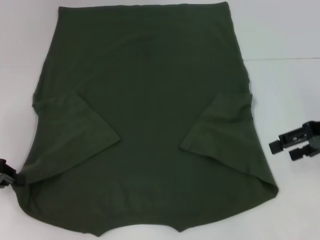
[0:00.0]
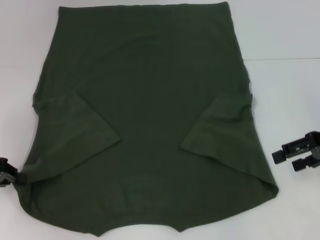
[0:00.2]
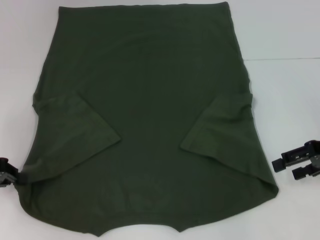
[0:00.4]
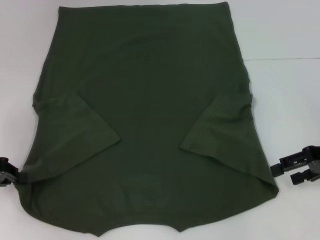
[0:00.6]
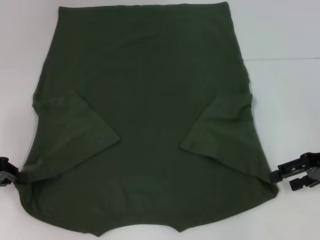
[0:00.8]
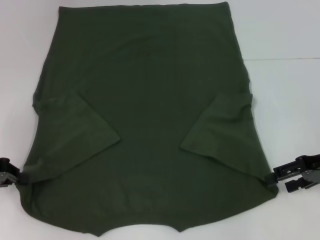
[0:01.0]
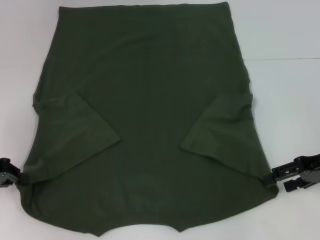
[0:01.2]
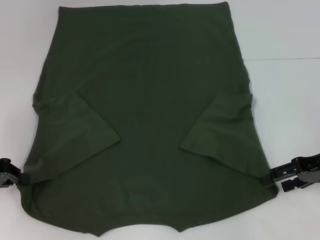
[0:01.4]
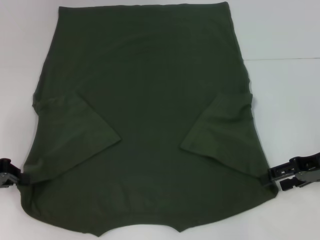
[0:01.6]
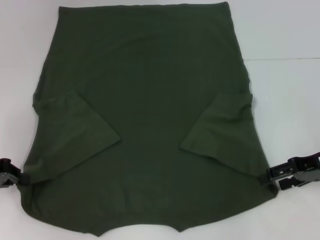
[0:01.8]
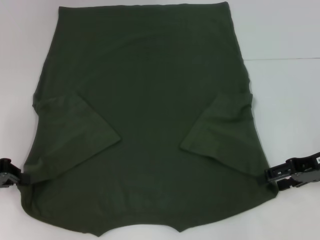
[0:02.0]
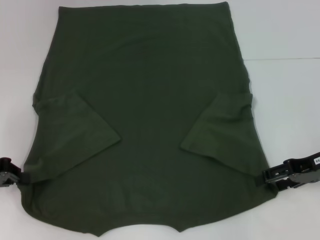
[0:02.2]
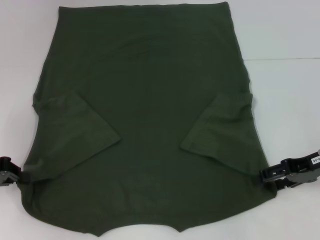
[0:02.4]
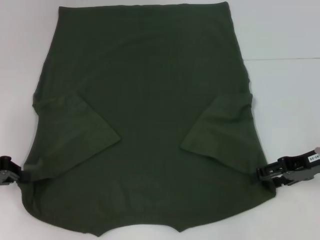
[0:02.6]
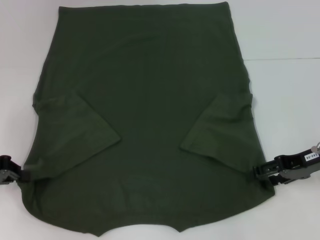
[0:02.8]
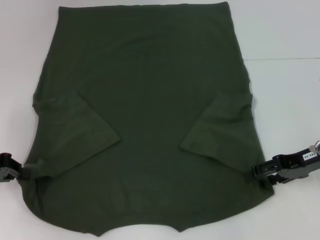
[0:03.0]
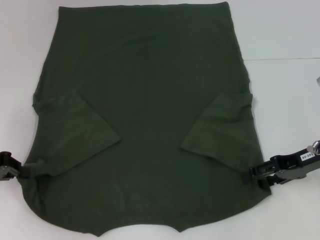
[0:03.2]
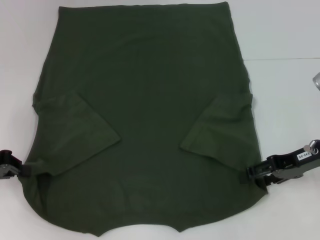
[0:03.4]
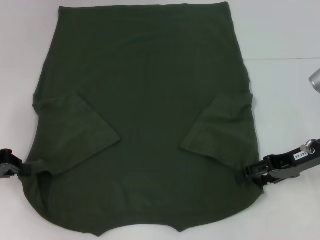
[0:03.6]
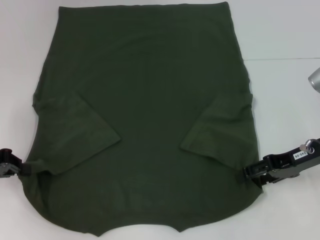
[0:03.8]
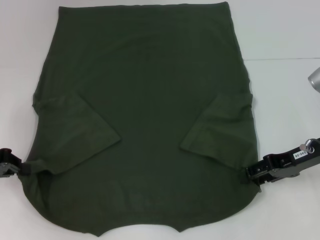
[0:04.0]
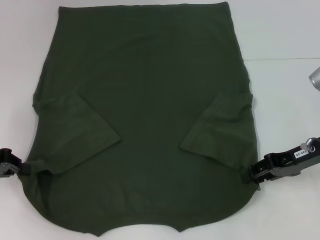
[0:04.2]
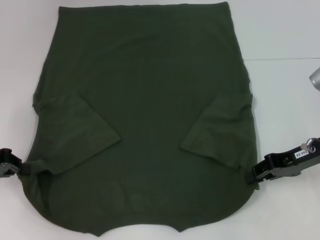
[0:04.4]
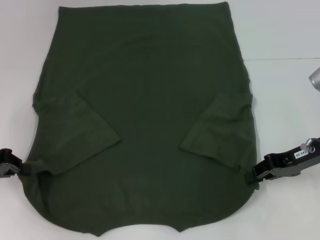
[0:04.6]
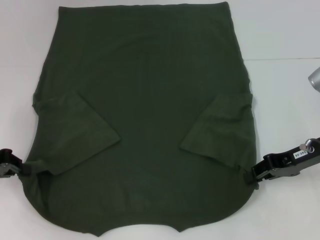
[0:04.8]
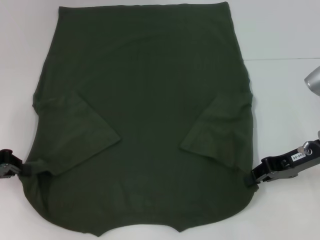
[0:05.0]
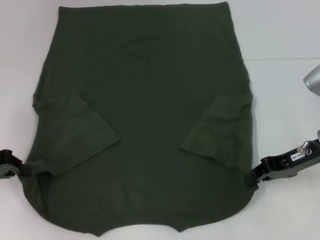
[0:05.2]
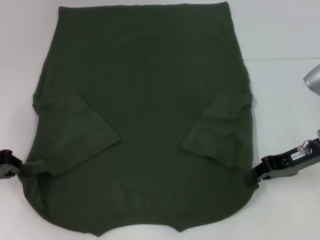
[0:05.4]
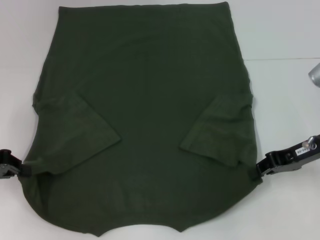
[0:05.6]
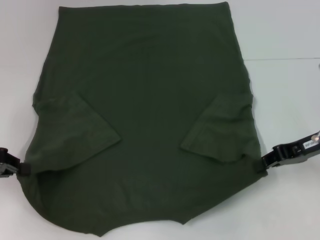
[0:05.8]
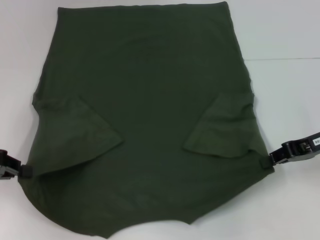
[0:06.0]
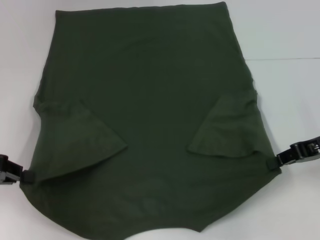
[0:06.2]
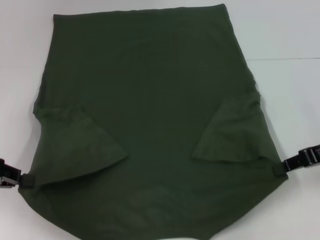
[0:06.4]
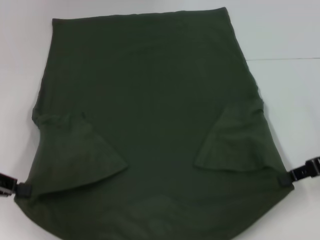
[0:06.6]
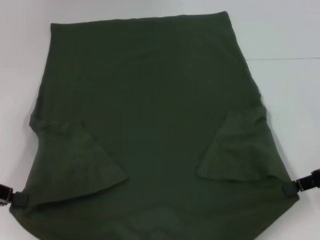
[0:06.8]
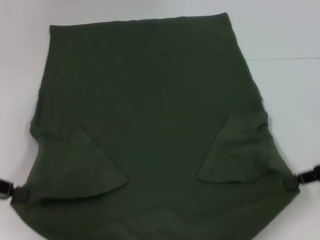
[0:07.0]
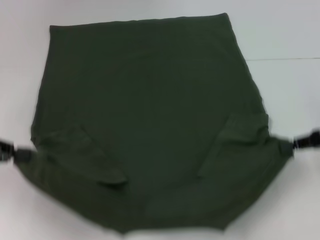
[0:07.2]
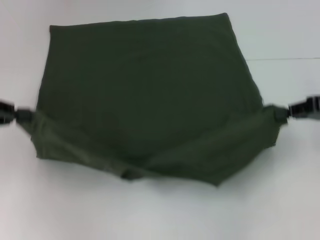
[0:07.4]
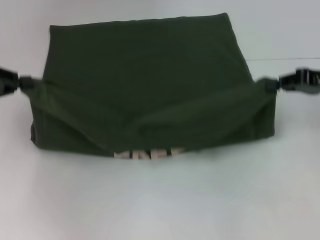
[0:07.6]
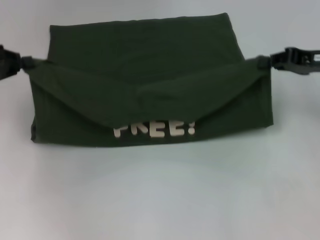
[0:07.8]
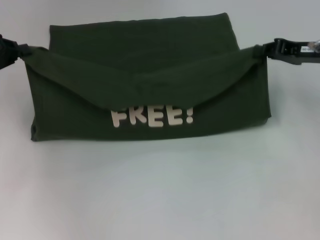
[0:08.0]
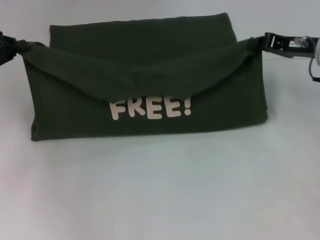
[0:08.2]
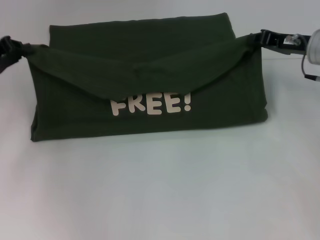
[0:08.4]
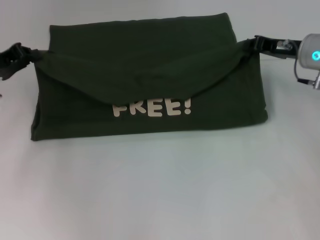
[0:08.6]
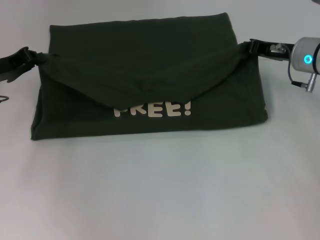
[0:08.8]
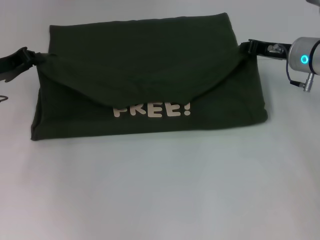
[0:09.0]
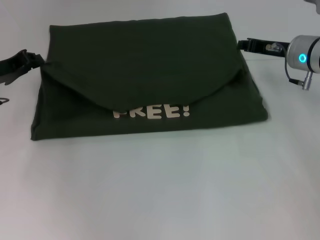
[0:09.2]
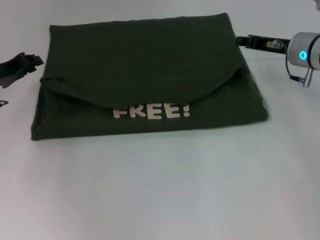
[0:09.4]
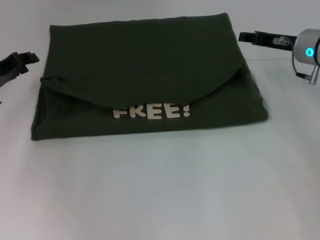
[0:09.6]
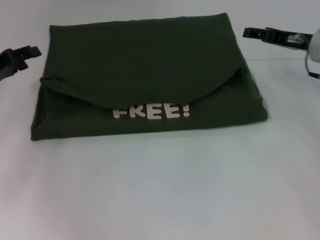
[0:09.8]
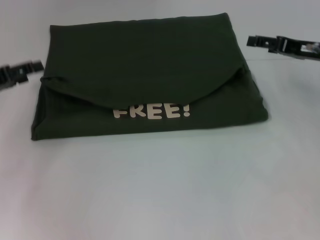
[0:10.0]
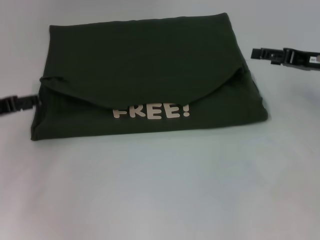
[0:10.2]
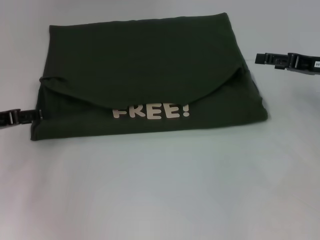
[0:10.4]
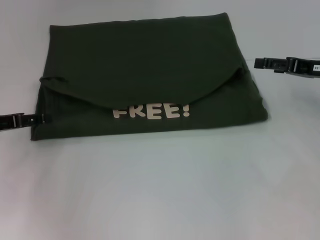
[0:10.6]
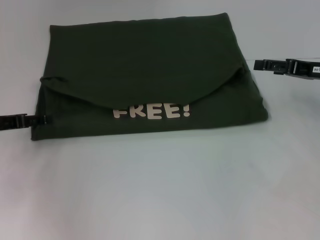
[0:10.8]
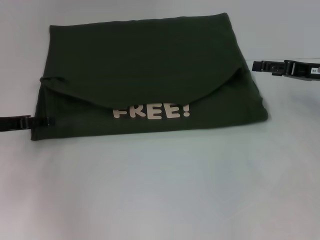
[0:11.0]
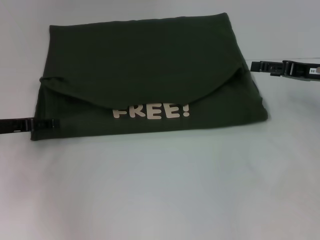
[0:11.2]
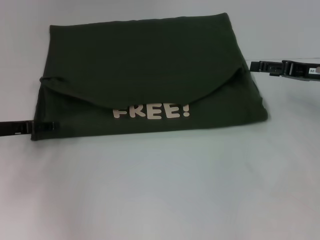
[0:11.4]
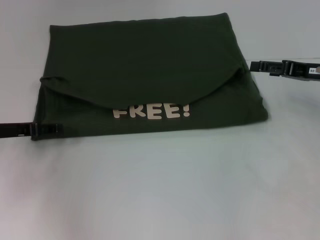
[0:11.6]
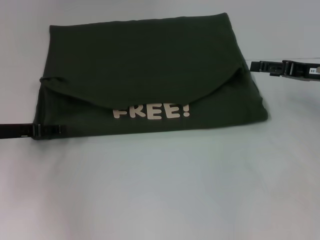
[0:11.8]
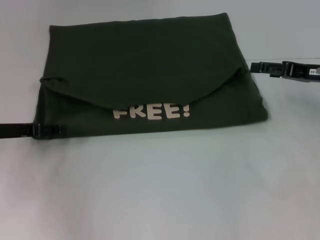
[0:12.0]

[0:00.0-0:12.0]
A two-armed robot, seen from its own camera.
Step, 0:00.0 to 0:04.8: Grab the bottom right corner with your right hand.
Step, 0:05.0 to 0:09.2: Fold the clothes with your left hand.
Step, 0:05.0 to 0:09.2: Fold the clothes with your right hand.
0:00.0 to 0:01.6: The right gripper is displaced downward by approximately 5 cm.
0:01.6 to 0:03.0: The grippers make only small movements.
0:03.0 to 0:04.4: The right gripper closes up.
0:04.4 to 0:06.0: The right gripper closes up.
0:06.0 to 0:07.6: The right gripper shifts by approximately 5 cm; the left gripper heads upward, covering some 5 cm.
0:07.6 to 0:09.0: The left gripper goes about 5 cm downward and forward. The right gripper heads to the left and forward, covering about 10 cm.
0:09.0 to 0:10.4: The left gripper is displaced backward by some 5 cm, and opens up. The right gripper travels to the right by about 10 cm, and opens.
0:10.4 to 0:12.0: The grippers stay close to where they were, moving slightly.

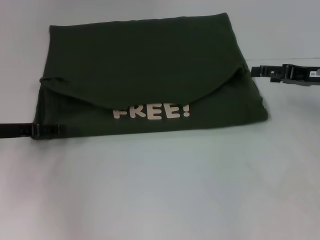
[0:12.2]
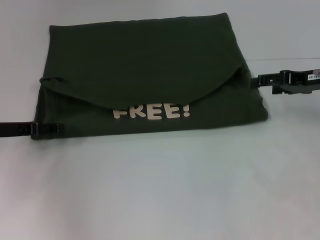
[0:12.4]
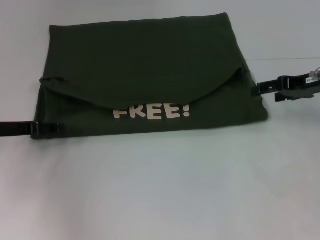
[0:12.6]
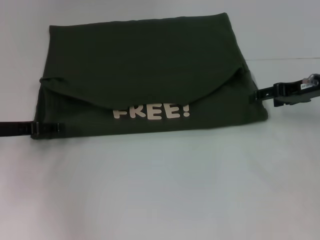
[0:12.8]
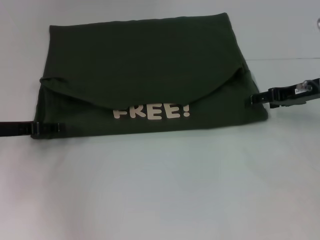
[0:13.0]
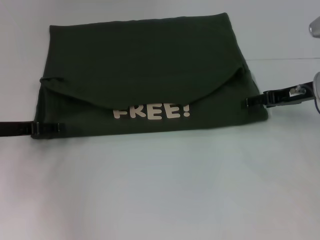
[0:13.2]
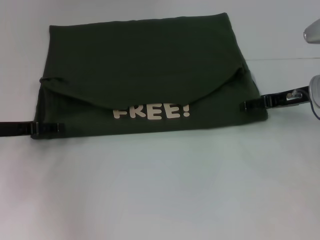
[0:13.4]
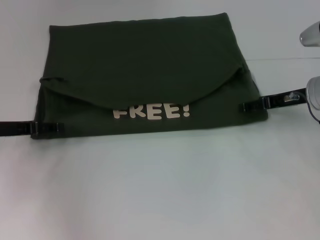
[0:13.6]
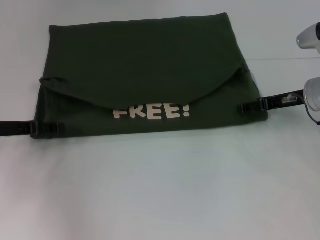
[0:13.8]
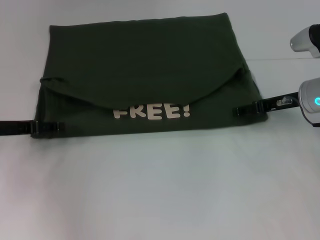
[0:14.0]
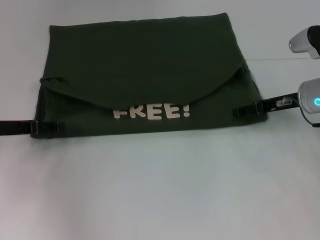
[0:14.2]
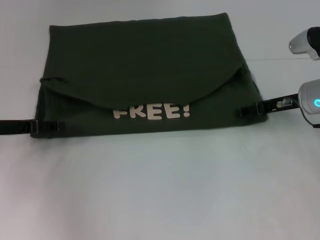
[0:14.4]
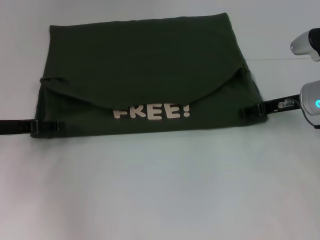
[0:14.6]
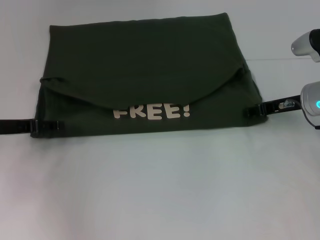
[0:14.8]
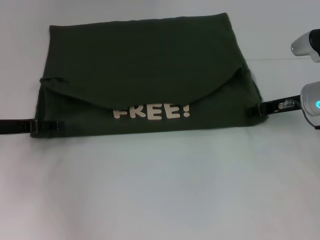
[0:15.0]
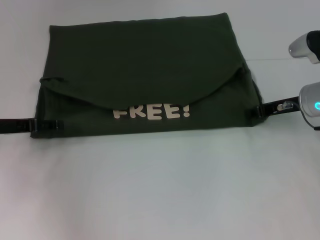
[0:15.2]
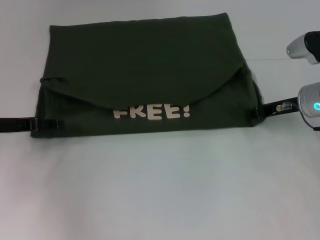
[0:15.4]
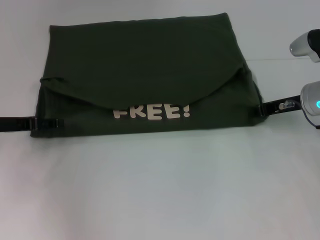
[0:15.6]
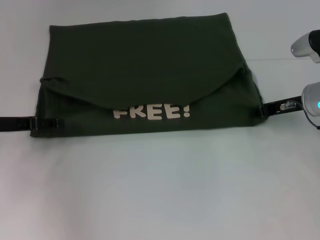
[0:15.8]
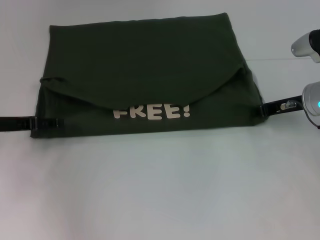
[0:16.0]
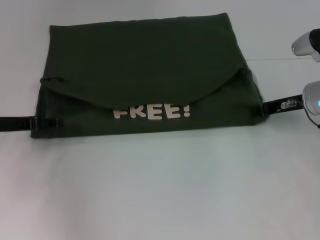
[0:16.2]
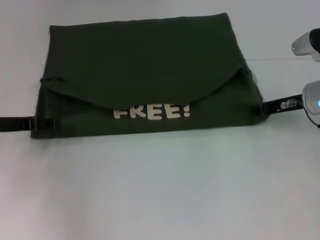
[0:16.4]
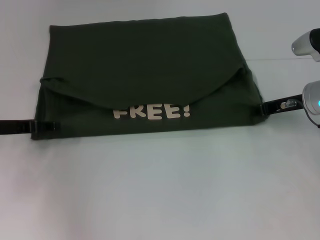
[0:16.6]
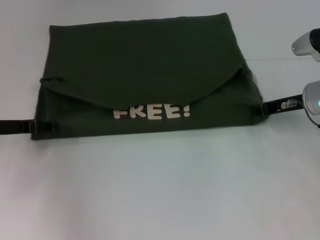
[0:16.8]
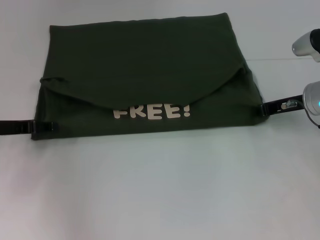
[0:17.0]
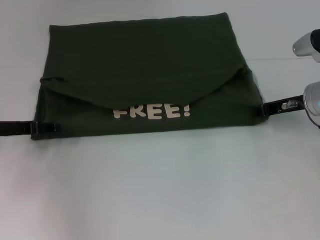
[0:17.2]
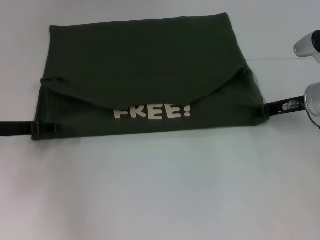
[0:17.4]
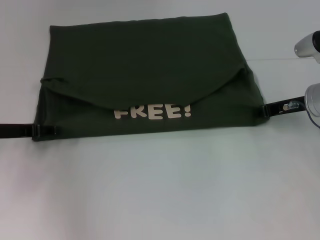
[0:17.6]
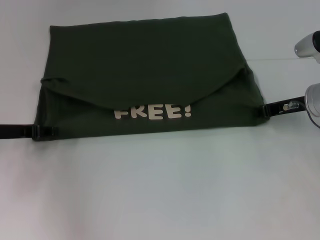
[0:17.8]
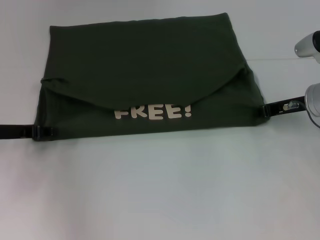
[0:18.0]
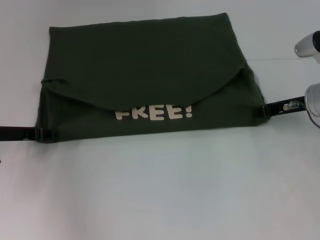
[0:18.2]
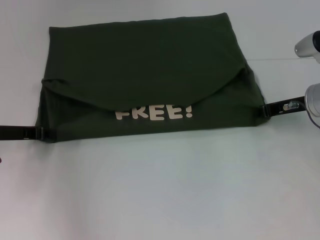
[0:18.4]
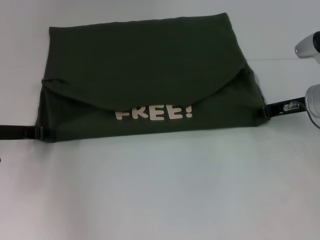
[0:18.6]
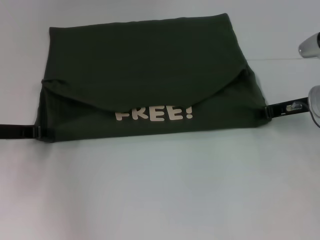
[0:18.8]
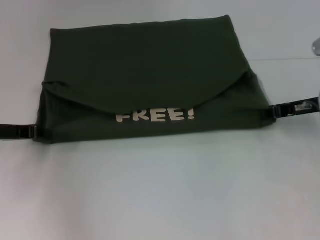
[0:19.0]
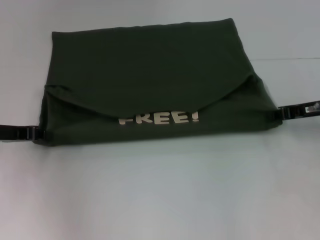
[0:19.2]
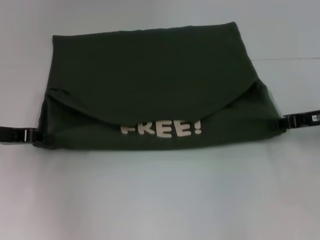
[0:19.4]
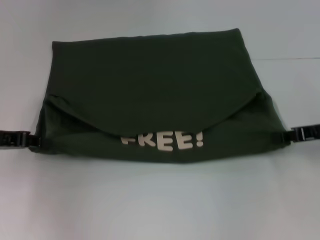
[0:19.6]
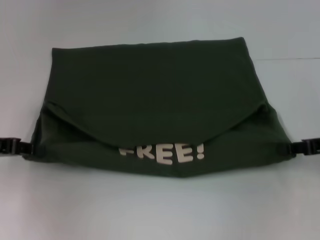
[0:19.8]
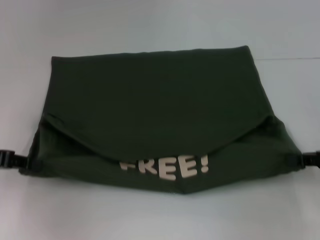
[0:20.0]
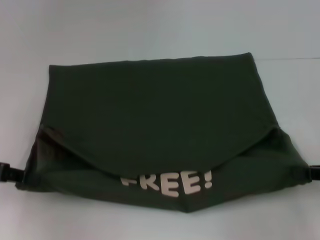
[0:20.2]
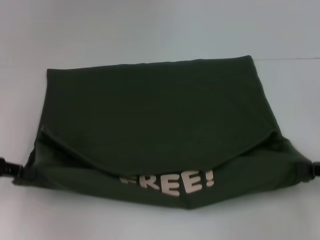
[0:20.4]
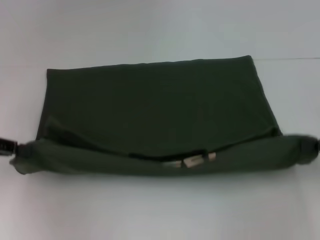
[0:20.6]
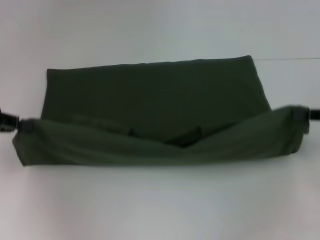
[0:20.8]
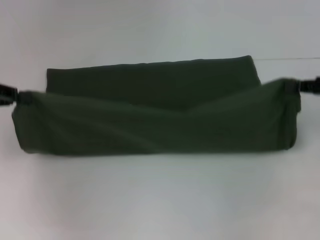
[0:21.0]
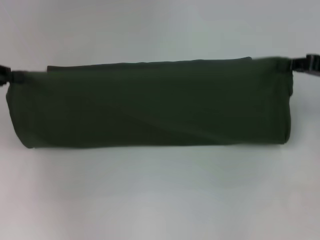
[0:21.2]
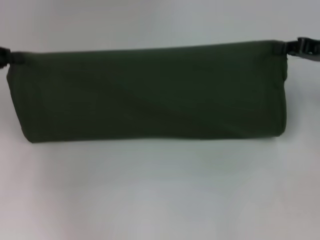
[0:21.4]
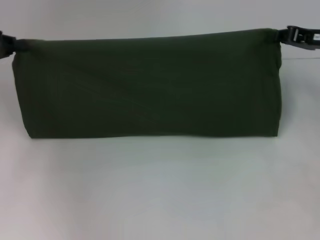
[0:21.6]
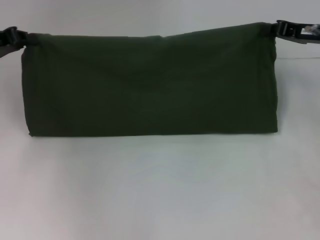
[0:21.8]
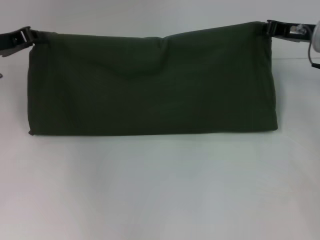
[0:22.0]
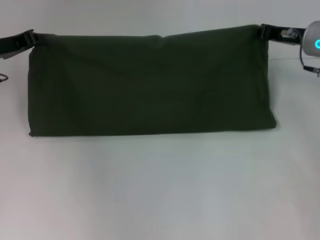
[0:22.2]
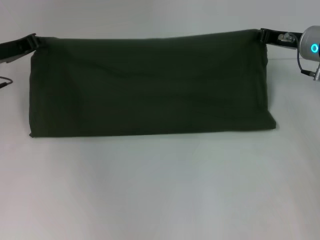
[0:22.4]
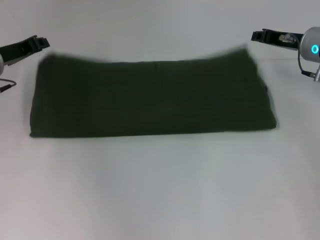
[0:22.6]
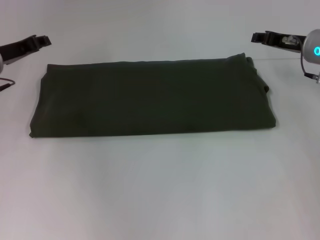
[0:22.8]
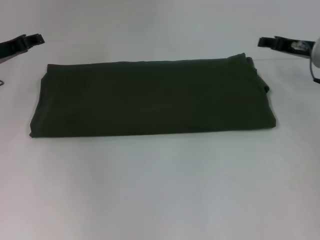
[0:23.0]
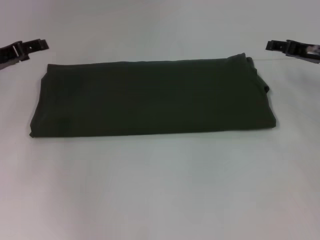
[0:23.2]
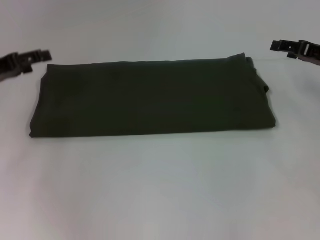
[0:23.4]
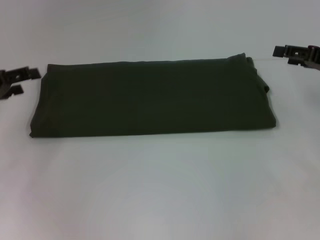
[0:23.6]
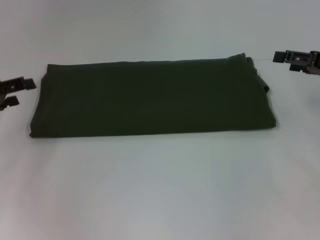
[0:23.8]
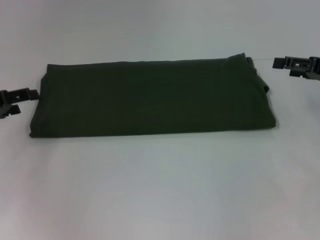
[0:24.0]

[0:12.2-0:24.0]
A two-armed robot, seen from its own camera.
Step, 0:12.2 to 0:20.2: Pull the clothes with your left hand.
Step, 0:12.2 to 0:20.2: Pull the clothes with your right hand.
Step, 0:20.4 to 0:22.6: Fold the clothes with your right hand.
0:12.2 to 0:13.6: The right gripper shifts by approximately 5 cm.
0:13.6 to 0:15.2: The right gripper closes its fingers.
0:15.2 to 0:16.6: Neither gripper changes place.
0:16.6 to 0:18.2: Both grippers stay put.
0:18.2 to 0:19.6: The right gripper heads backward and to the right, covering some 10 cm; the left gripper ends up roughly 5 cm from where it was.
0:19.6 to 0:21.0: The two grippers go roughly 5 cm upward. The right gripper moves some 10 cm backward and comes back.
0:21.0 to 0:22.6: The left gripper heads forward, to the right and downward, covering about 10 cm, while the right gripper shifts roughly 15 cm forward and to the left.
0:22.6 to 0:24.0: The left gripper moves backward and to the left, about 10 cm, and opens its fingers. The right gripper shifts approximately 10 cm to the right and backward, and opens.
